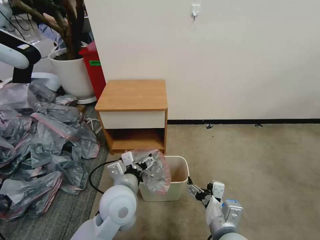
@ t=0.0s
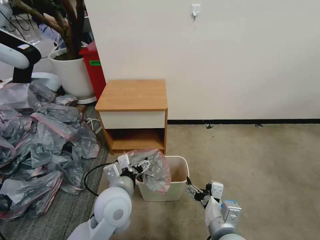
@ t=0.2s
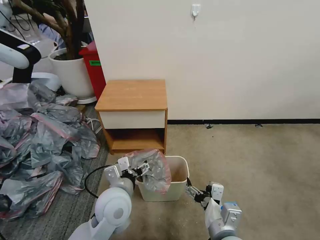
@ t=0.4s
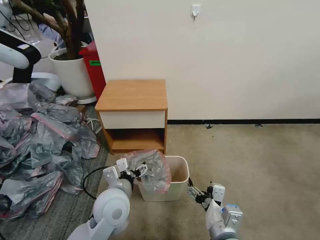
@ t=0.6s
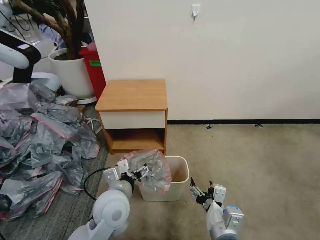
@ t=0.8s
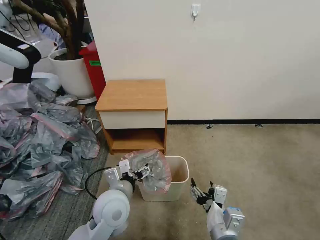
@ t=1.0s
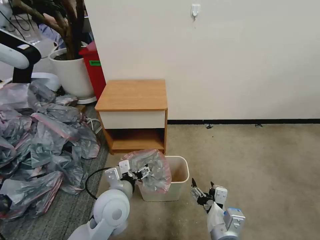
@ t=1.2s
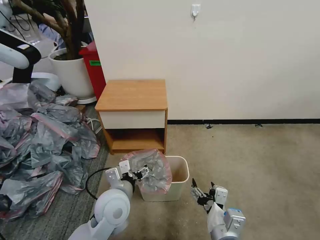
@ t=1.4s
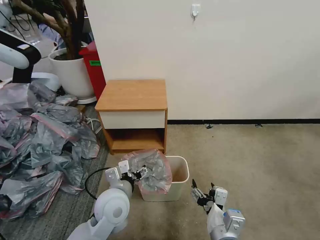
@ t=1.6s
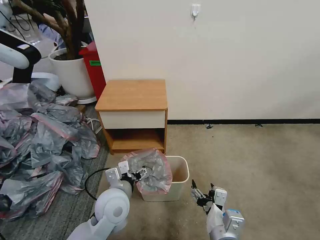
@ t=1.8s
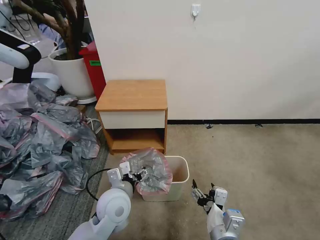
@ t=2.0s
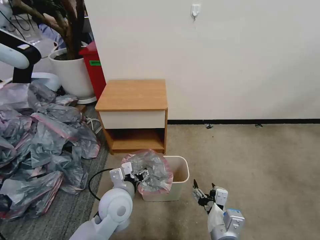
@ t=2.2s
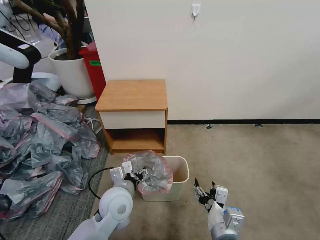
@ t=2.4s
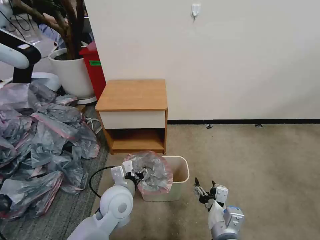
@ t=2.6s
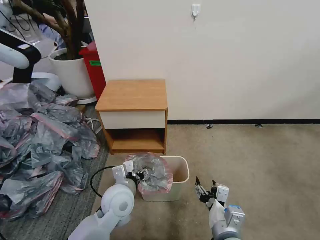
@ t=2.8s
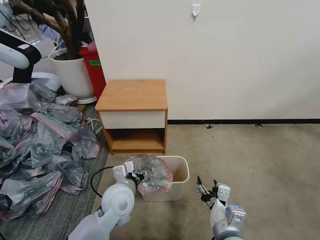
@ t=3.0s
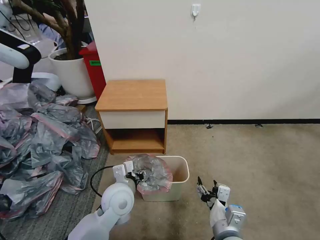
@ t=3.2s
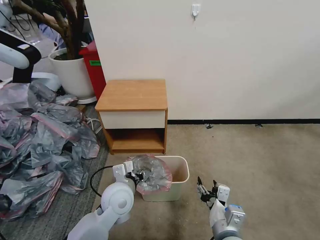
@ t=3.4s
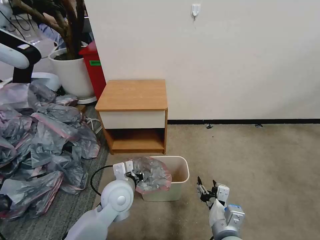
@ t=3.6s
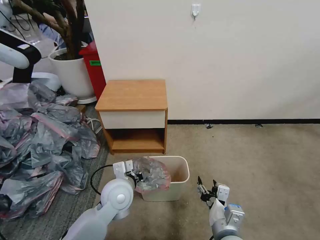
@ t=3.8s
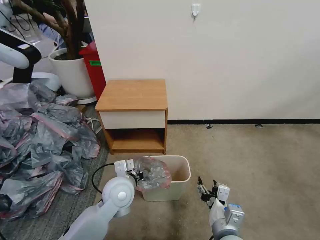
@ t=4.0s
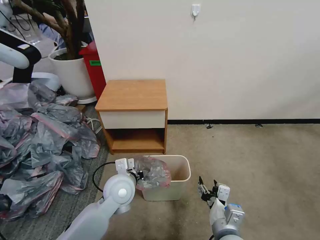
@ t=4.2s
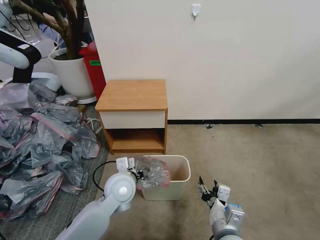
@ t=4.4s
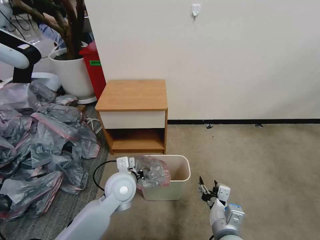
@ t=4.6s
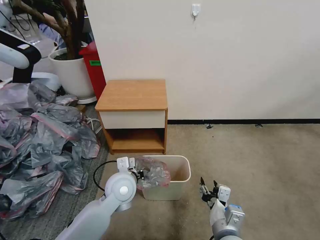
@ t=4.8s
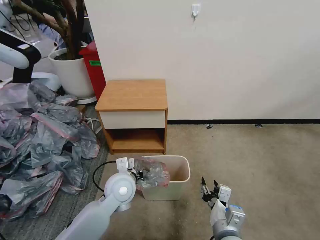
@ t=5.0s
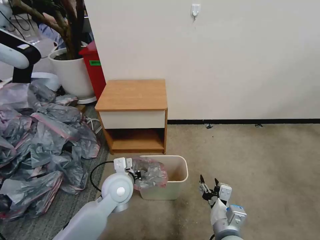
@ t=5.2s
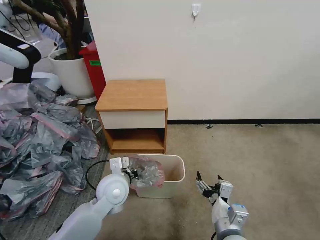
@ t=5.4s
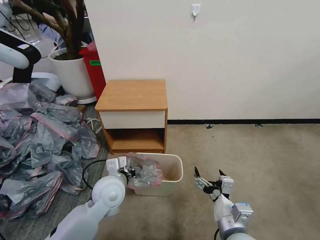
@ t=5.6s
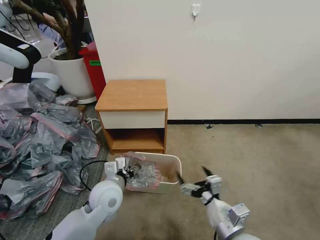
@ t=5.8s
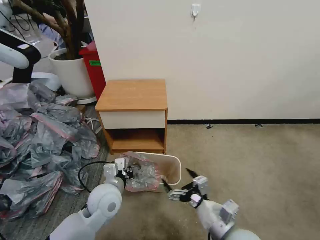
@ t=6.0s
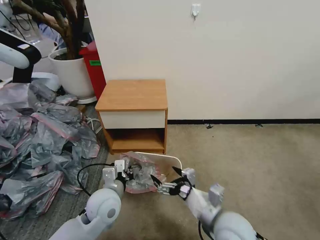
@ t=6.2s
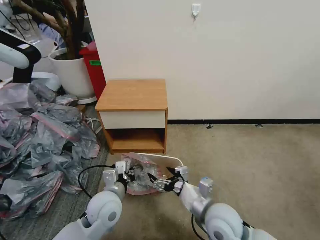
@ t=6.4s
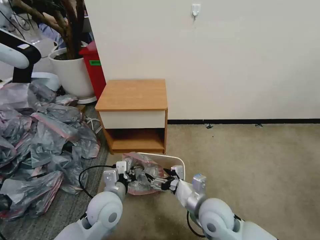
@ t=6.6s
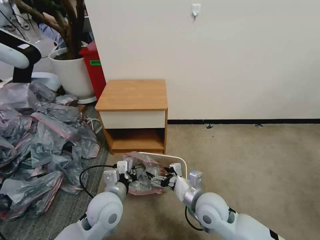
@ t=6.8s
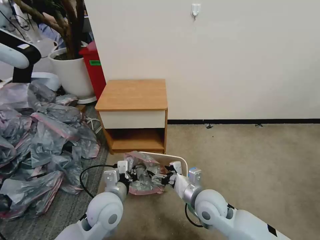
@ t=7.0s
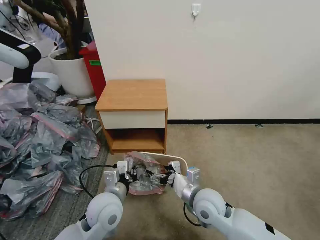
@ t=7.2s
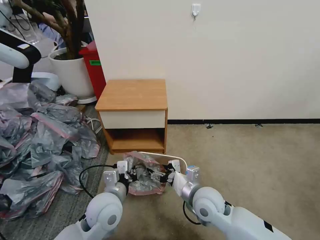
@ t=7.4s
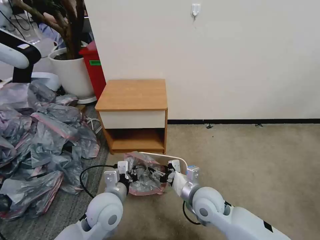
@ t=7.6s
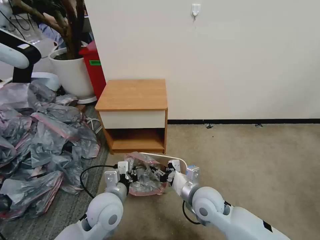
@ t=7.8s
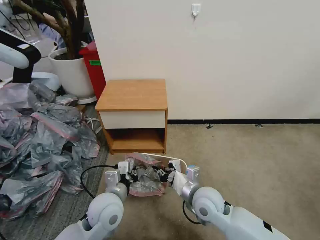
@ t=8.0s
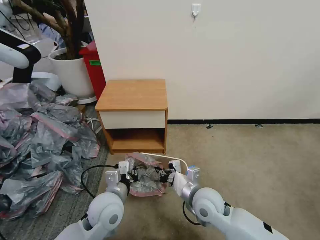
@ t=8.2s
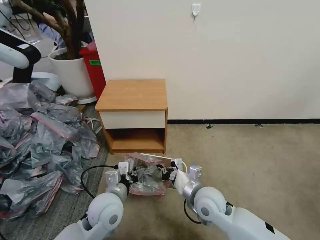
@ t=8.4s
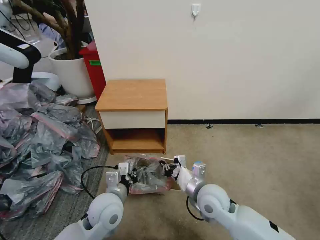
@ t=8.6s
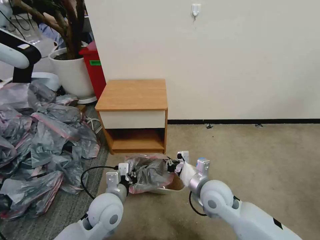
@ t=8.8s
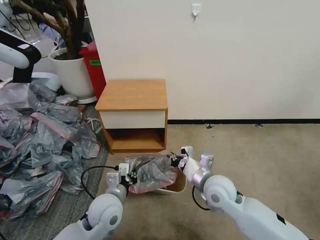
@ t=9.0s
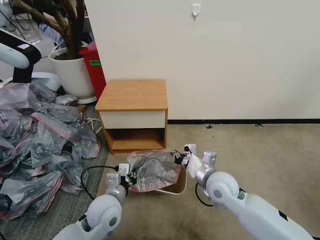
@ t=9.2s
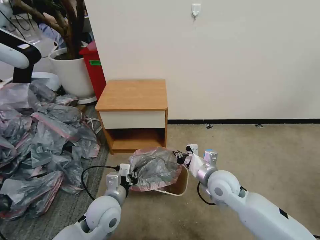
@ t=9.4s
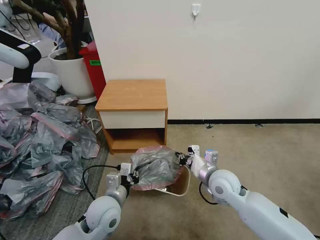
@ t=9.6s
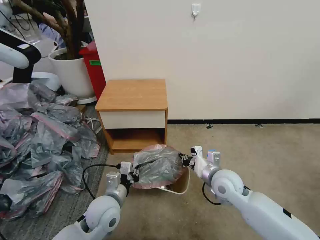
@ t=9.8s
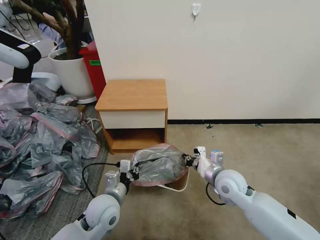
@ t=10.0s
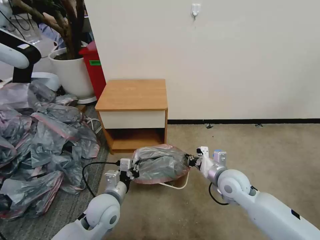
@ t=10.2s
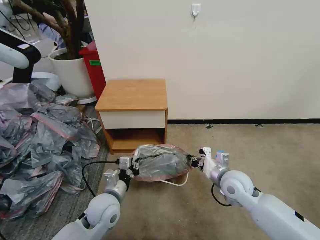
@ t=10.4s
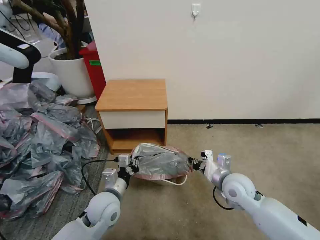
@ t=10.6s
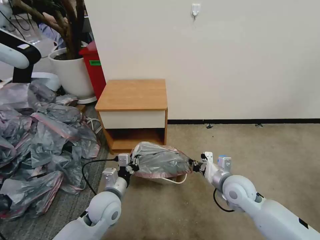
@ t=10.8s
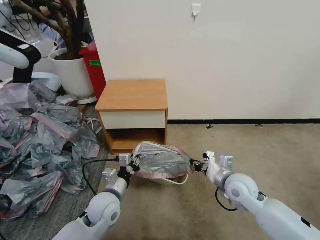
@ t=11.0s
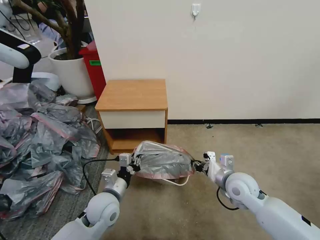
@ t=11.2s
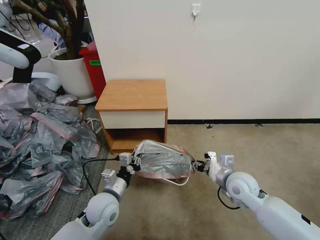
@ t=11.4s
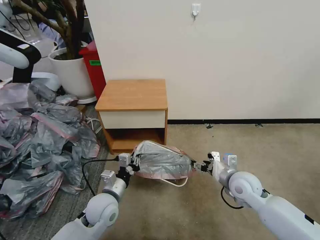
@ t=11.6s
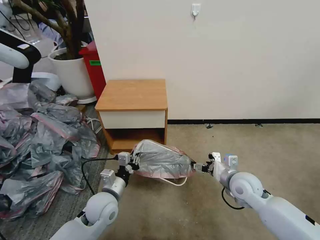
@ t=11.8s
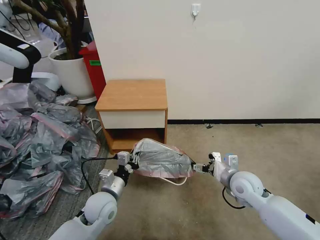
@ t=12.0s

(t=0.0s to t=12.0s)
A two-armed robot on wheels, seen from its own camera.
Task of the whole recording: Pick up the garbage bag from the table and place it over the trash can.
t=0.0s - t=3.0s: The grippers move only a little.
t=3.0s - t=4.4s: The left gripper closes up.
t=4.4s - t=6.0s: The left gripper shifts by about 5 cm. The right gripper opens.
t=6.0s - t=7.6s: The right gripper travels forward and to the left by about 15 cm, and closes its fingers.
t=7.6s - t=9.0s: The right gripper moves roughly 5 cm, and closes.
t=9.0s - t=10.4s: The right gripper shifts approximately 5 cm to the right.
t=10.4s - t=12.0s: The right gripper opens up.

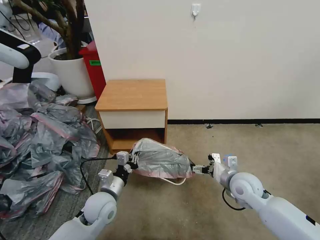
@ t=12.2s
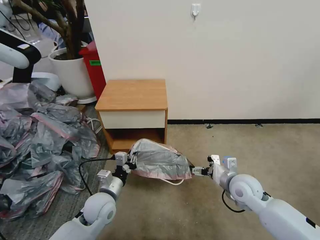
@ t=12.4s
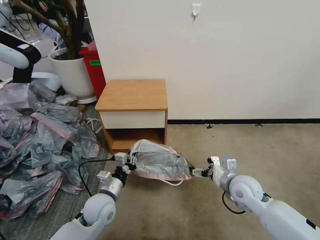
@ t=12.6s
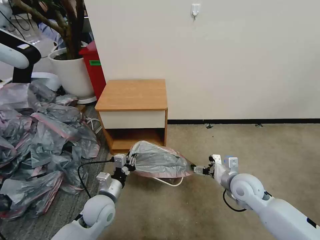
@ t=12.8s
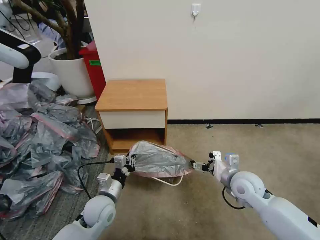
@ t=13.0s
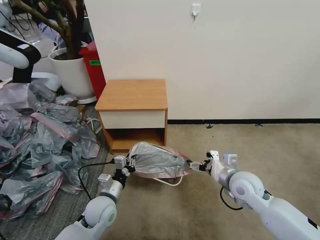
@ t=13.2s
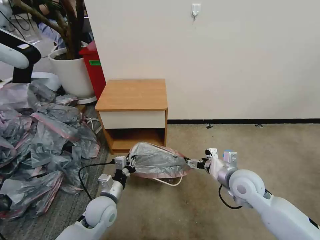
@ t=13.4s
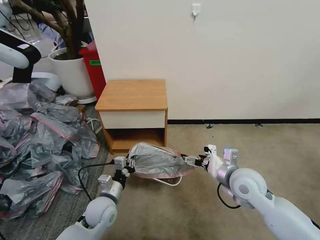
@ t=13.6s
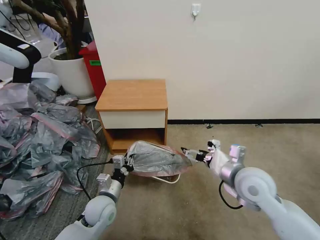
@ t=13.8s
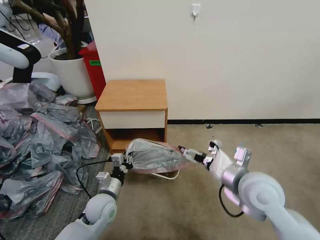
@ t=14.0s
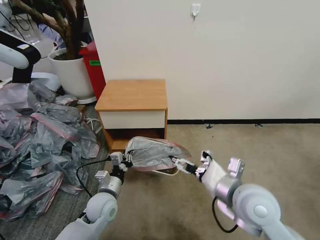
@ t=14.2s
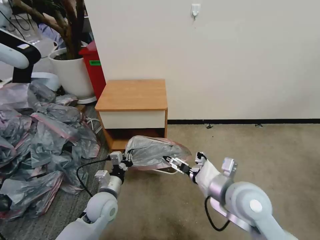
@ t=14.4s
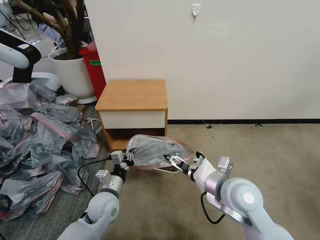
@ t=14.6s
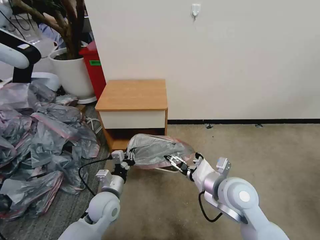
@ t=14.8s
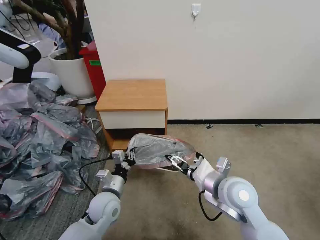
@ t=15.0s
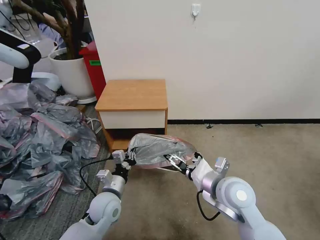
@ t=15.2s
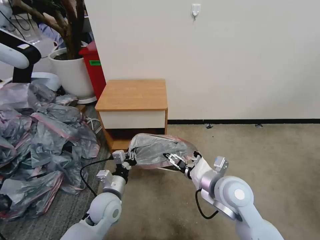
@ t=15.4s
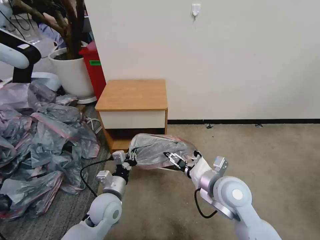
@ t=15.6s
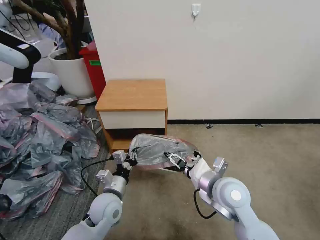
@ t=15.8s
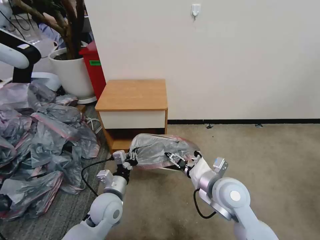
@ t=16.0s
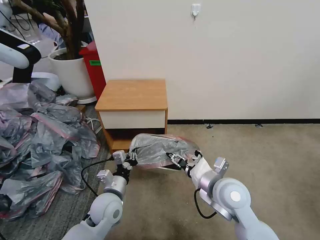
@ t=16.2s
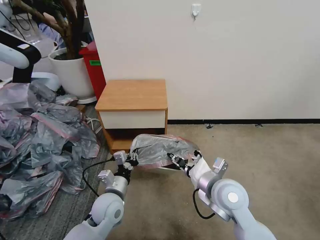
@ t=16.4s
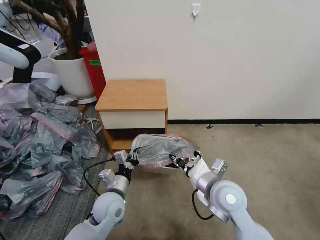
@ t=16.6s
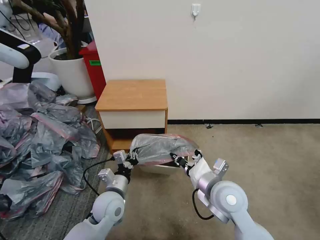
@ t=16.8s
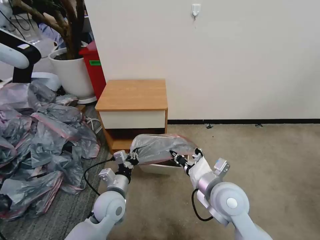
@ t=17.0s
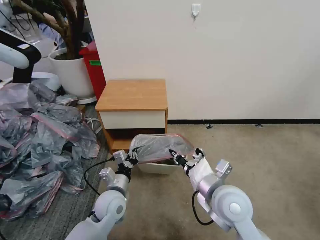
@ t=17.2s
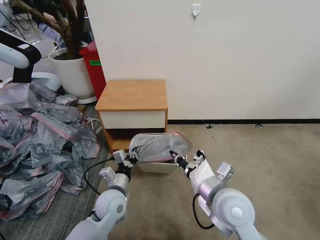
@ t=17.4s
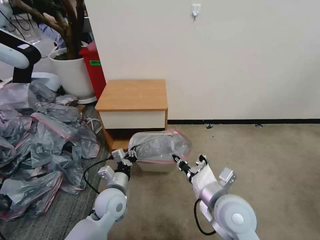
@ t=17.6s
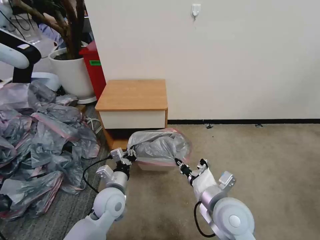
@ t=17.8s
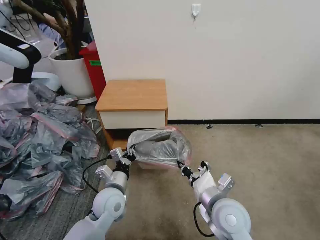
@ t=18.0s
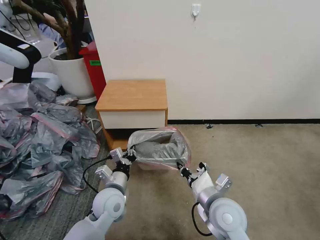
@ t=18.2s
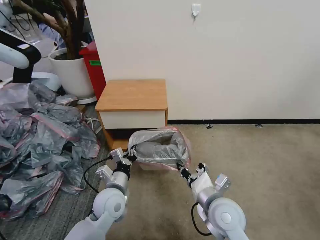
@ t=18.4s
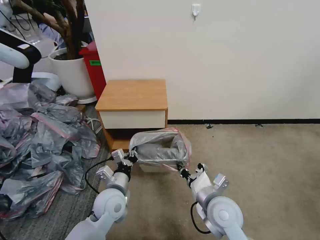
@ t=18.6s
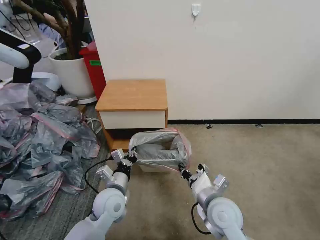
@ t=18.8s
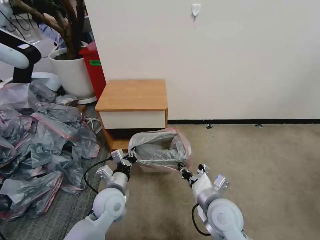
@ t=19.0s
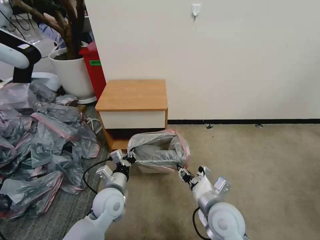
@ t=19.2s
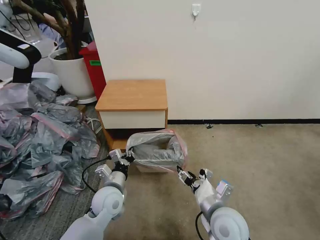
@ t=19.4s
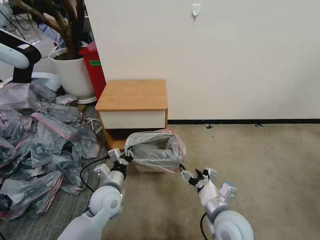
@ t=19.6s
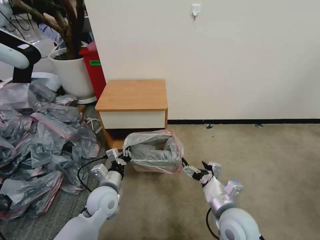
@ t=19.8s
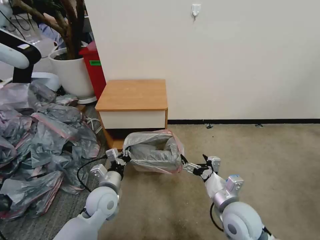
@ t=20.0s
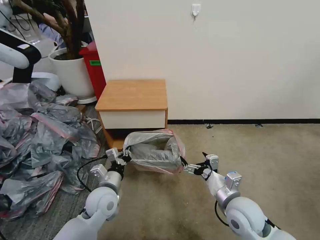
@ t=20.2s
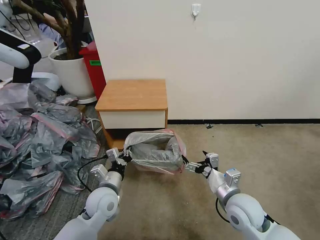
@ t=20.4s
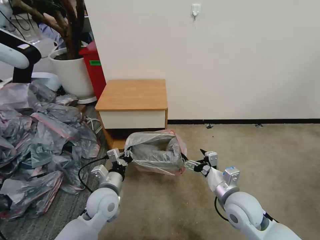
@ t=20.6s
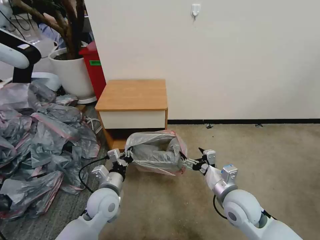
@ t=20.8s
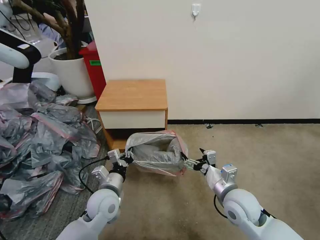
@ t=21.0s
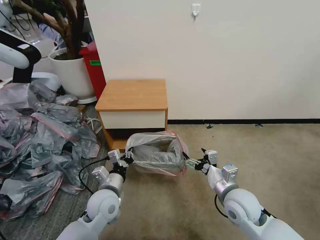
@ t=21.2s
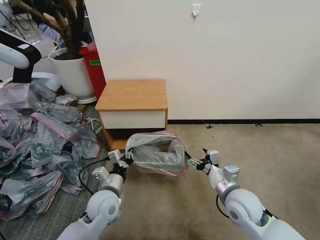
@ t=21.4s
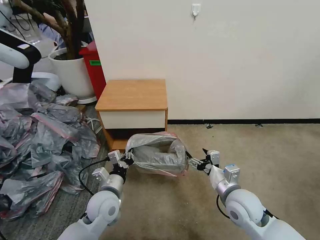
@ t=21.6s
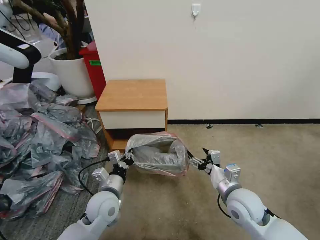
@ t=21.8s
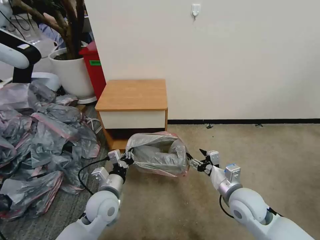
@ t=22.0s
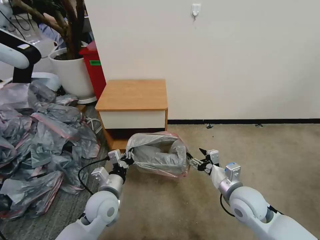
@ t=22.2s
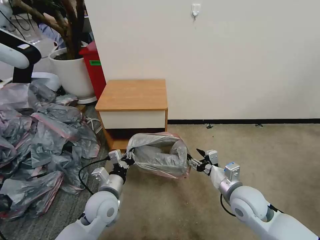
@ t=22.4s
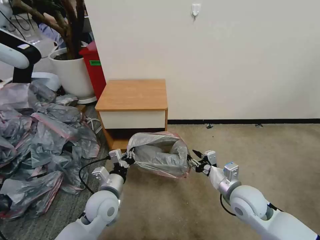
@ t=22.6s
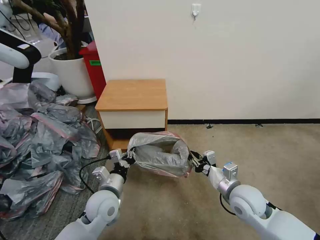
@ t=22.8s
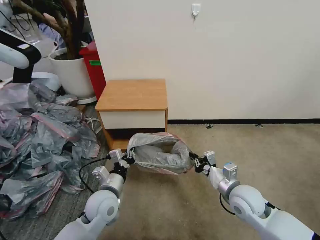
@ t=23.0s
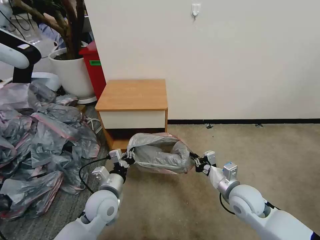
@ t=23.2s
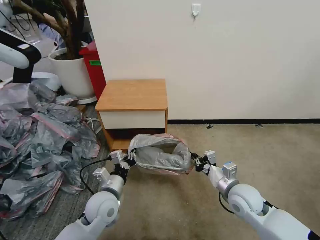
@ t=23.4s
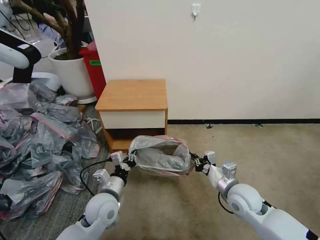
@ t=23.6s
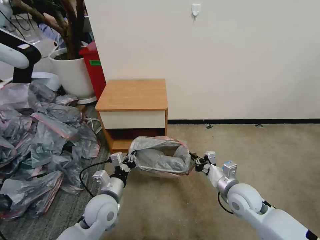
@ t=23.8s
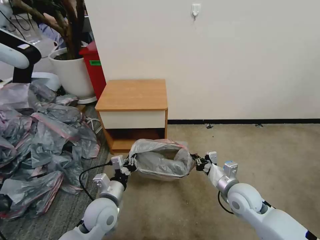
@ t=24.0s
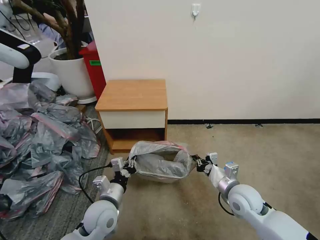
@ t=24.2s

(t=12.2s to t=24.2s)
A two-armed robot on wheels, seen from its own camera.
Task of the whole recording: Pick up the garbage bag from the table and place it over the trash can.
t=12.2s - t=13.8s: The right gripper goes about 10 cm upward.
t=13.8s - t=15.2s: The right gripper goes some 5 cm to the left.
t=15.2s - t=16.6s: The right gripper closes.
t=16.6s - t=18.2s: The grippers stay close to where they were, moving slightly.
t=18.2s - t=19.8s: The right gripper opens.
t=19.8s - t=21.2s: The right gripper moves forward, some 5 cm.
t=21.2s - t=22.6s: The right gripper closes up.
t=22.6s - t=24.2s: The right gripper closes its fingers.
